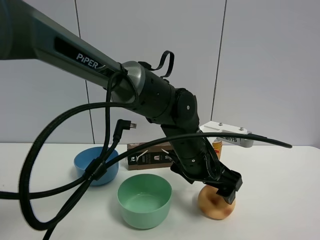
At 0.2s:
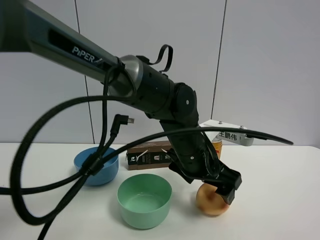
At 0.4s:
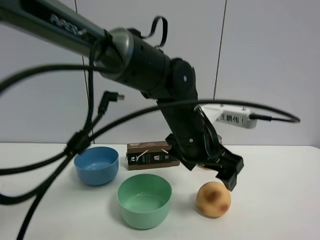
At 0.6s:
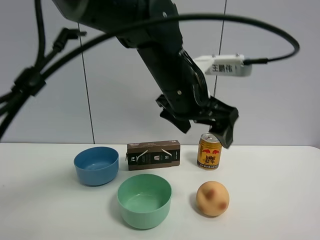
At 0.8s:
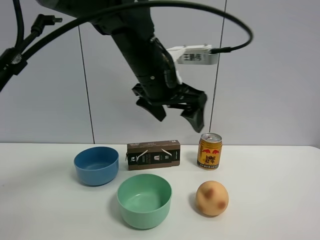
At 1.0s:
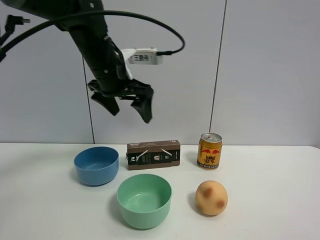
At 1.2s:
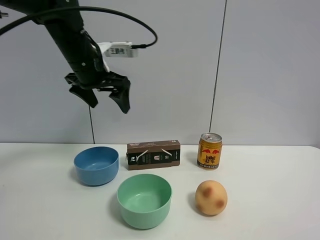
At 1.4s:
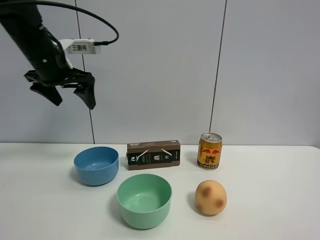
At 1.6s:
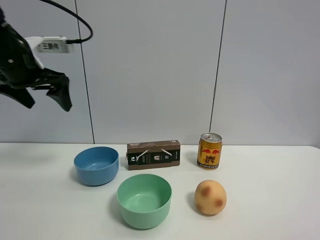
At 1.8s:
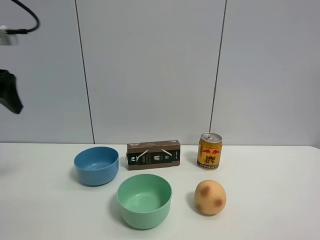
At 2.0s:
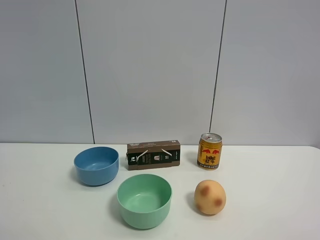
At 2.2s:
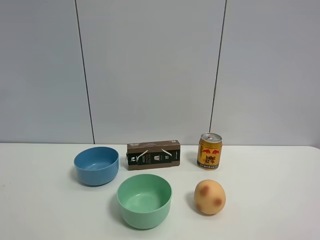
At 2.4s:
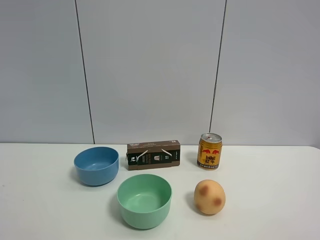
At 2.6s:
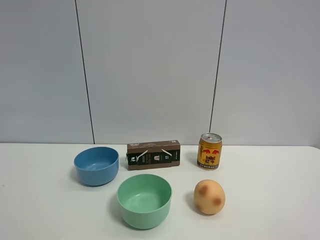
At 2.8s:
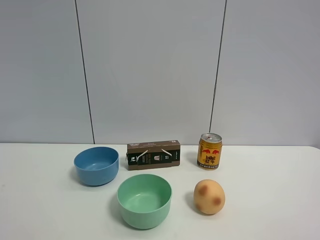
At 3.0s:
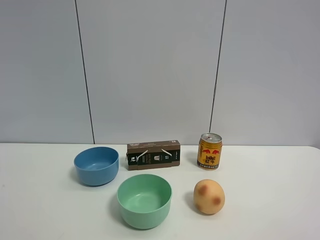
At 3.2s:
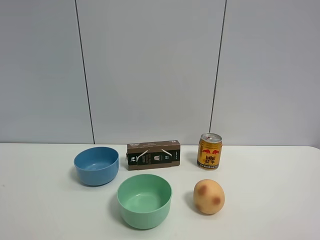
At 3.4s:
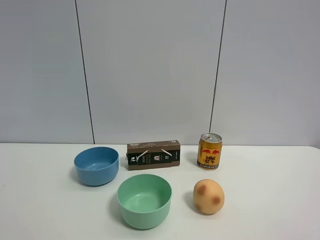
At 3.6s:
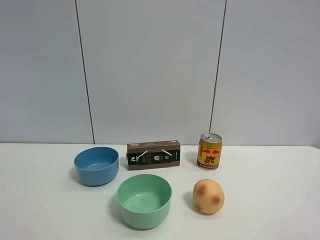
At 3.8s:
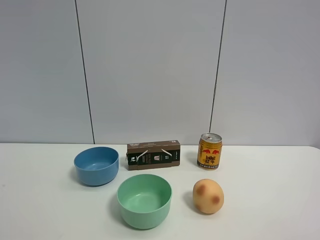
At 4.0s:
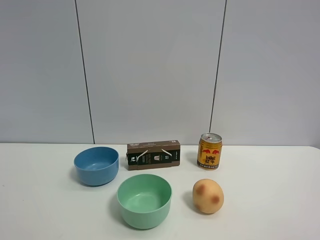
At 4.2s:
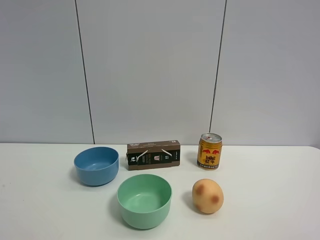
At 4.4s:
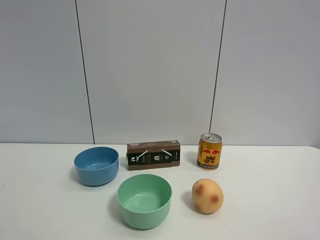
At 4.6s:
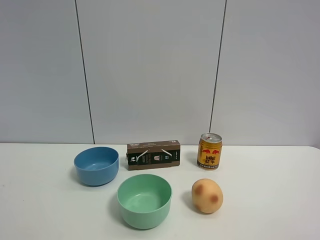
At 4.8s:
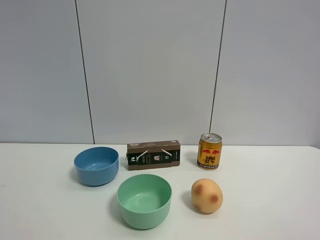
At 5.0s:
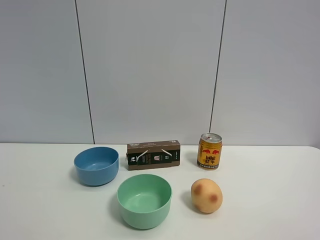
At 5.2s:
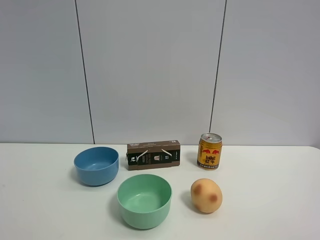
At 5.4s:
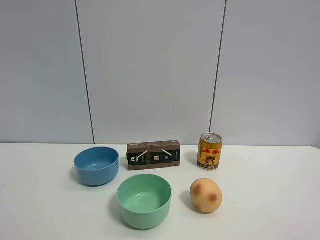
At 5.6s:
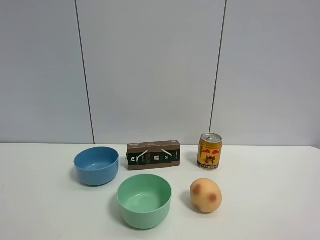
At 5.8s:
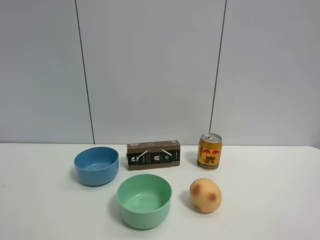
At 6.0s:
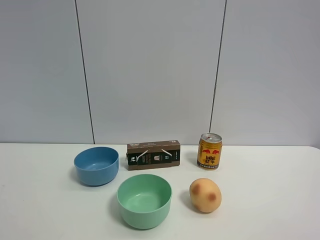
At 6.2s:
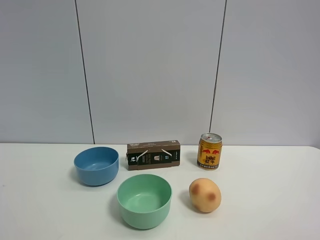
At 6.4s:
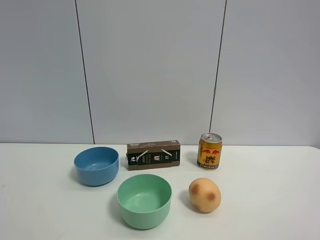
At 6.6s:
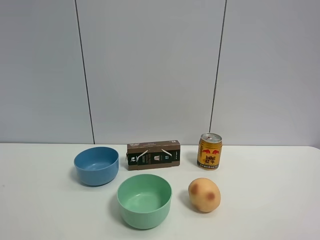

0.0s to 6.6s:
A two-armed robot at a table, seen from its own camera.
Task of the whole recording: the gripper move the object.
0.0s to 1.6s: The left gripper travels to the left and upward by approximately 40 cm.
1.6s to 3.2s: The left gripper is displaced backward by roughly 35 cm.
5.0s to 6.6s: Neither gripper changes place.

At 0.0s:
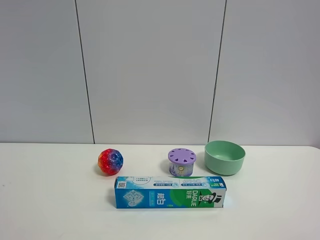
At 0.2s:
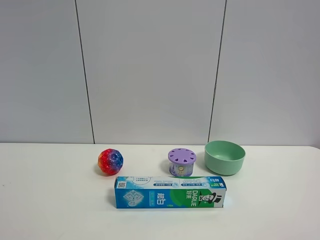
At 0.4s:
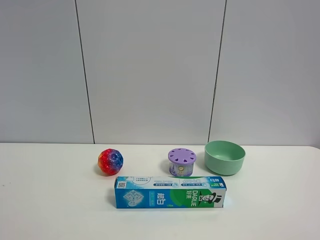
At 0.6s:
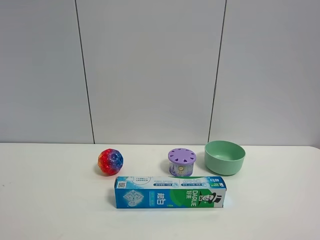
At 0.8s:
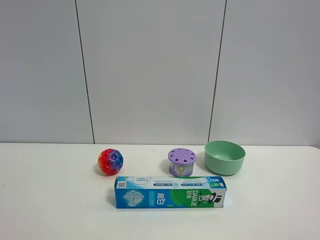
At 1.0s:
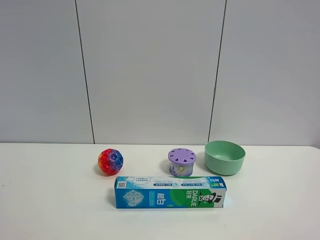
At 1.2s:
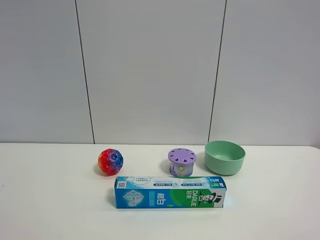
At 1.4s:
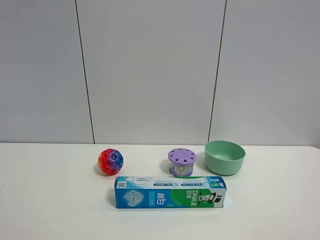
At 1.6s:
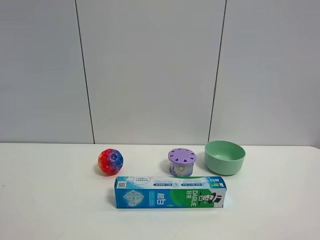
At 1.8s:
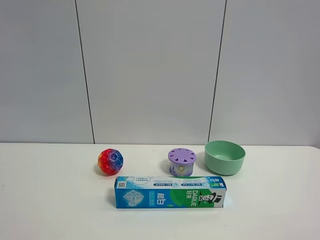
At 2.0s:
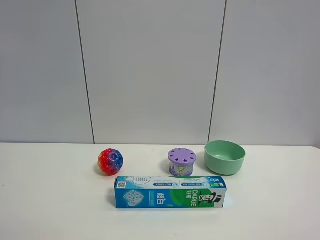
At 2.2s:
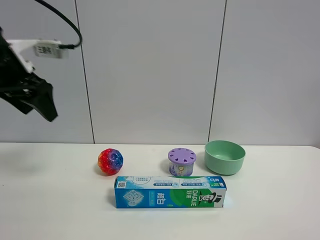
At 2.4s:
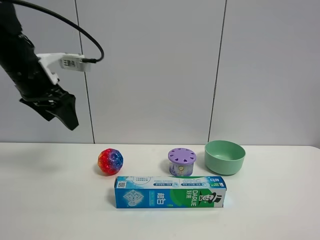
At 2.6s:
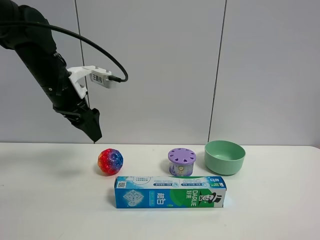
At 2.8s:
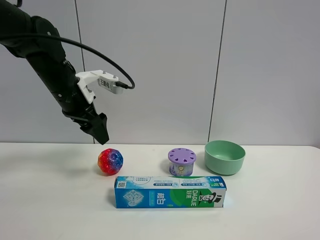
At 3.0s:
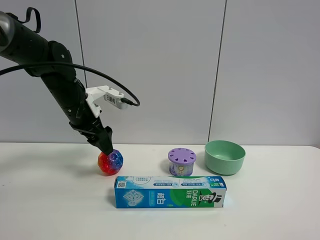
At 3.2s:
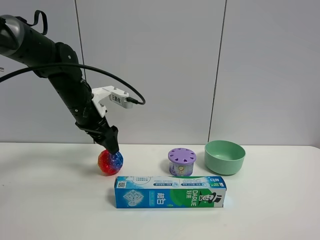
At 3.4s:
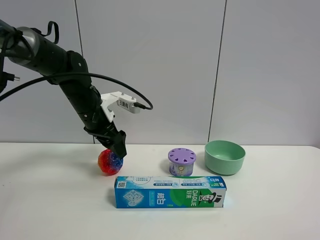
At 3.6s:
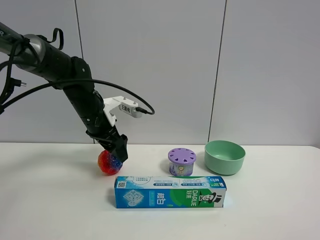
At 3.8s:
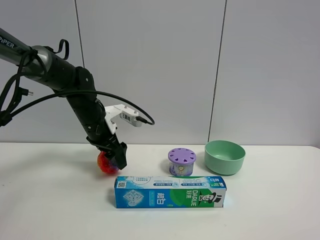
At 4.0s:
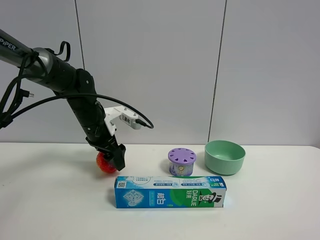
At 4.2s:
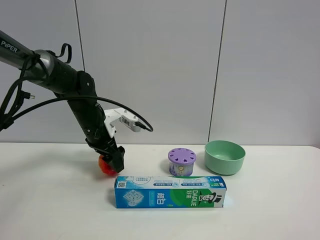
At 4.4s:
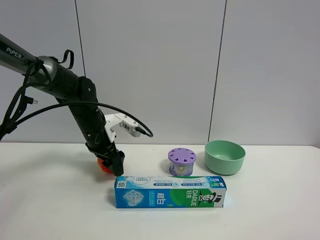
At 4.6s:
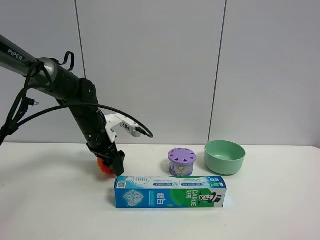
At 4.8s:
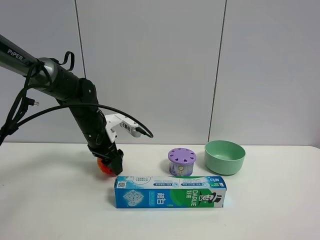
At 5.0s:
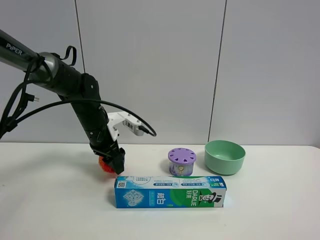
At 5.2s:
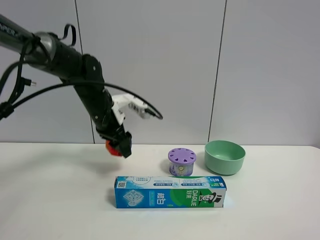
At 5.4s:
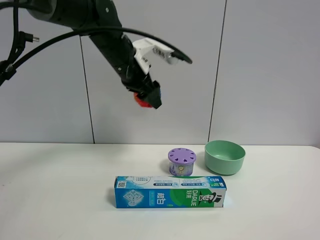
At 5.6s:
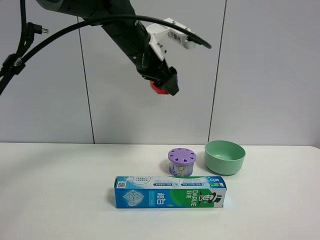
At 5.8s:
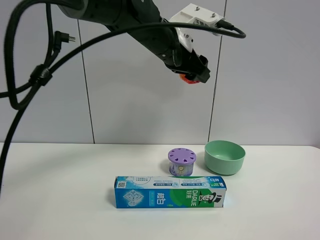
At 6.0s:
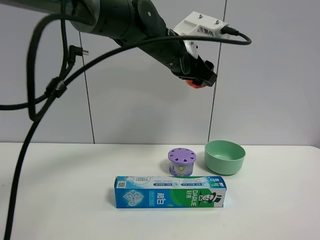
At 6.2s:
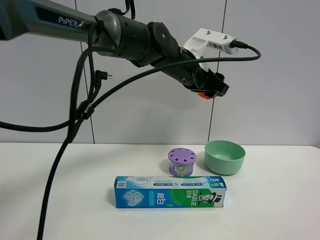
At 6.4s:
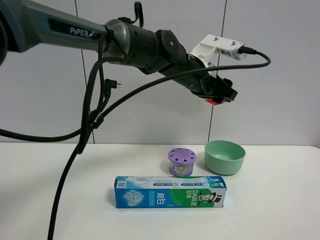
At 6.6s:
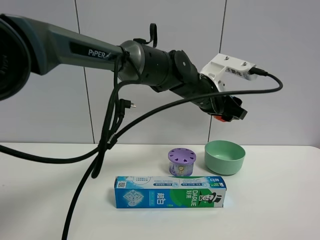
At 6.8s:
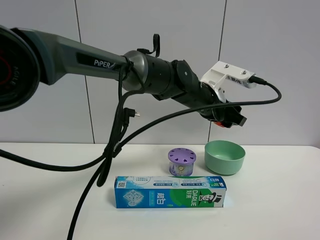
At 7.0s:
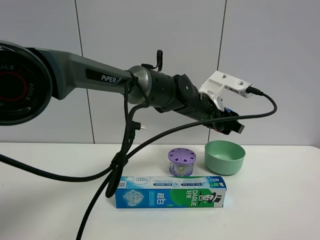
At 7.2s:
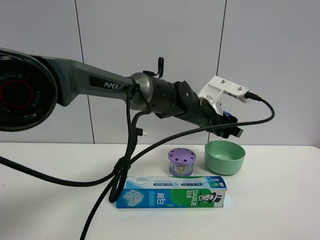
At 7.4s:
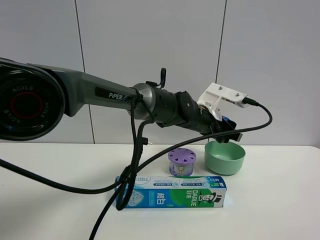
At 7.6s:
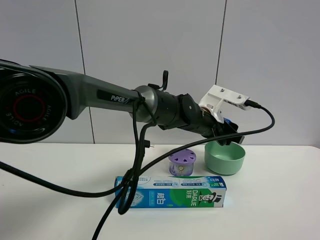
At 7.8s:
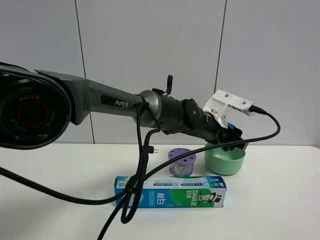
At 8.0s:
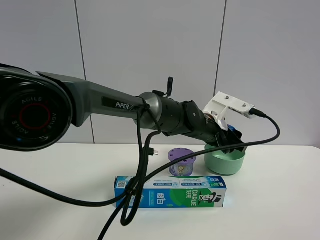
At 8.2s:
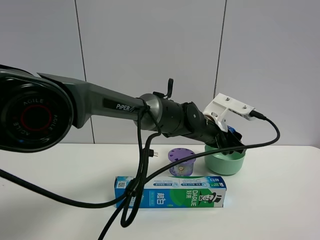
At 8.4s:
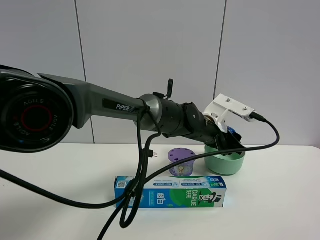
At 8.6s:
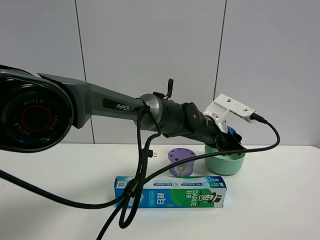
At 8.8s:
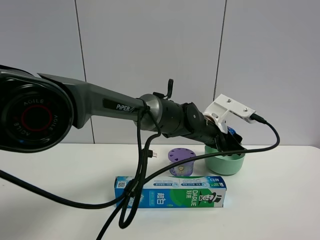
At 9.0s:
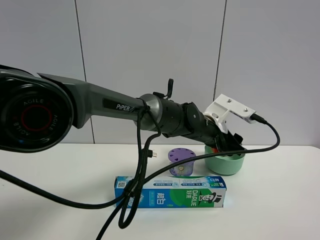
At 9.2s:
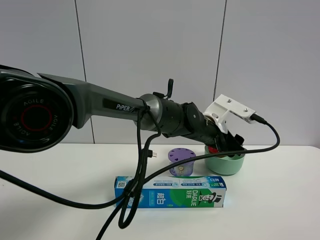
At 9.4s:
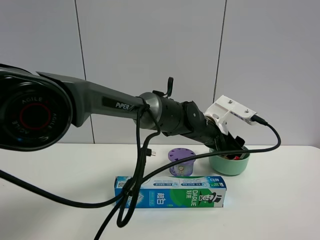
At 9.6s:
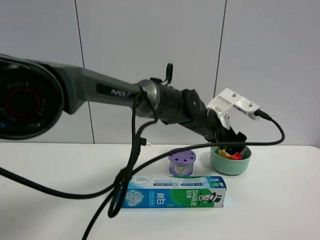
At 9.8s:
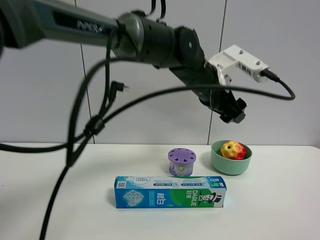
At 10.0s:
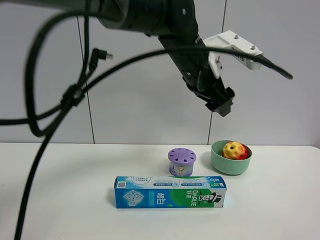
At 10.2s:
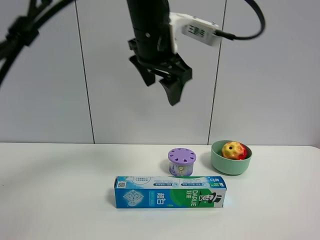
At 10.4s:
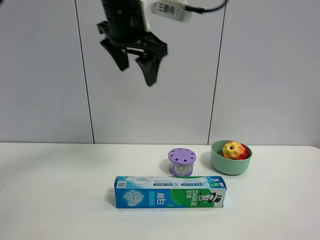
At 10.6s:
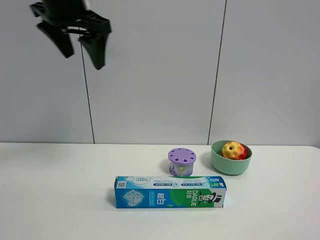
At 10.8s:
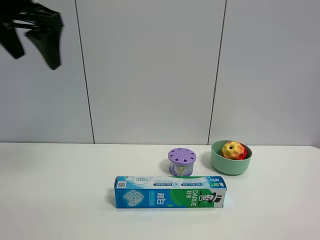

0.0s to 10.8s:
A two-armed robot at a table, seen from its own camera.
Task of the whole recording: the gripper move the object.
Step, 0.0s to 4.8s: Grasp the colorful ball with the left gripper.
Step, 5.0s to 9.4s: Place the colorful ball into the green bowl with the left gripper.
1.6s to 3.0s: The left gripper is displaced forward, downward and to the right by some 40 cm, and opens.
3.0s to 4.6s: The left gripper is displaced downward by approximately 5 cm.
4.6s to 6.2s: The left gripper goes some 25 cm to the right and upward, and closes.
6.2s to 7.8s: The left gripper shifts some 15 cm downward.
7.8s to 9.2s: The left gripper opens.
9.2s to 10.8s: The left gripper moves to the left and upward, approximately 40 cm.

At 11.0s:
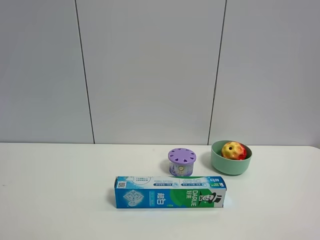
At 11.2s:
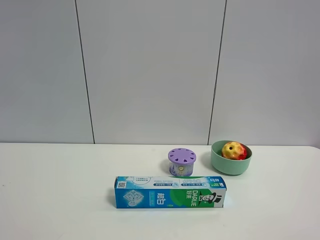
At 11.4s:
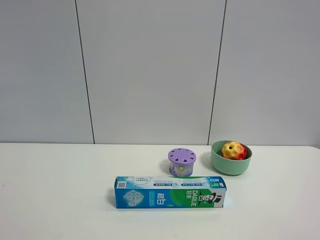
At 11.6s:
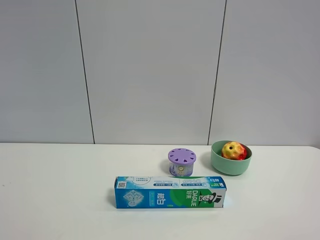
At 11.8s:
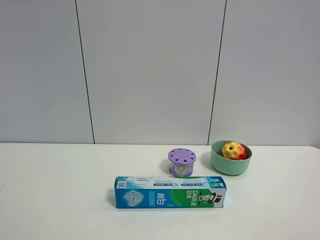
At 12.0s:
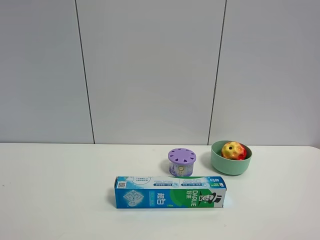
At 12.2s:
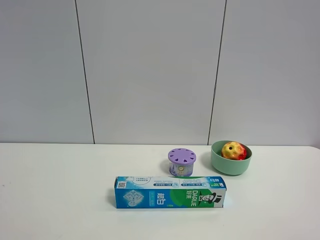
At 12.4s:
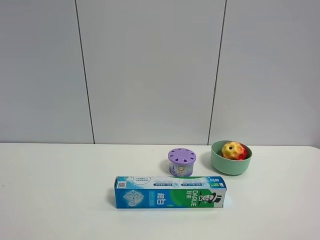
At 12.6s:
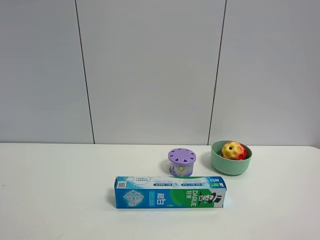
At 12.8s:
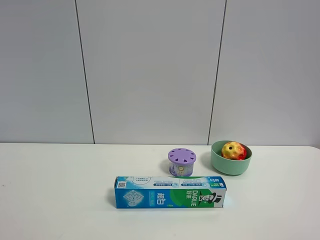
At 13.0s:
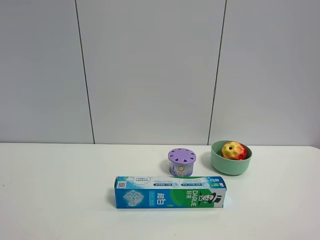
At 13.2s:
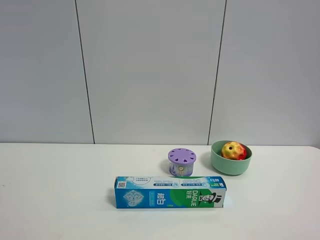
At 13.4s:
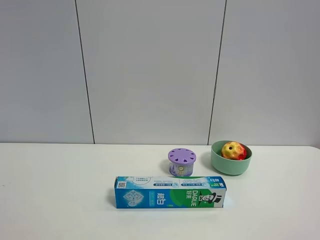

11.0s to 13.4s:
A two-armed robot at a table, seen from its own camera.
Task of the whole recording: the gripper move the object.
12.2s to 13.4s: The two grippers keep their place.

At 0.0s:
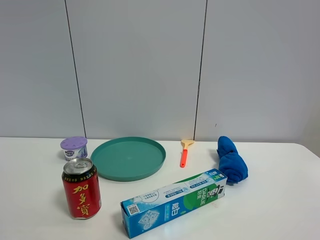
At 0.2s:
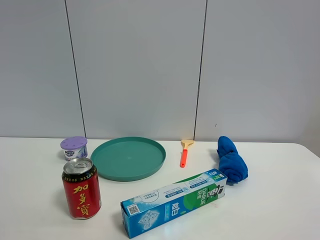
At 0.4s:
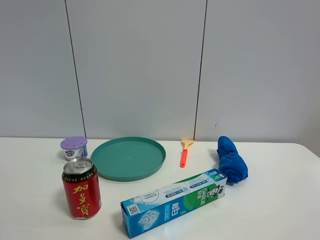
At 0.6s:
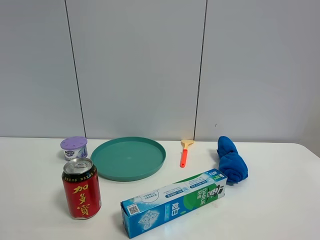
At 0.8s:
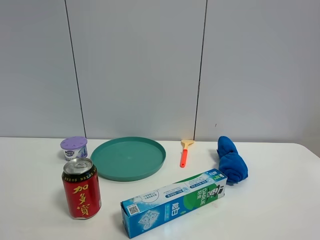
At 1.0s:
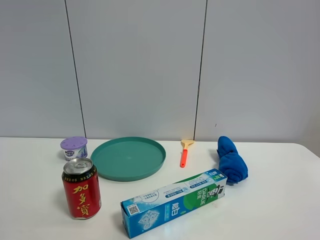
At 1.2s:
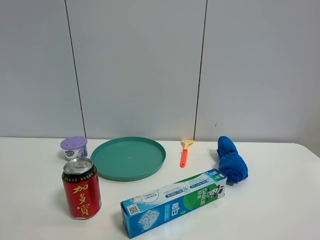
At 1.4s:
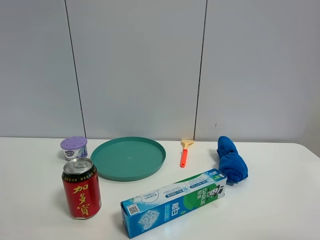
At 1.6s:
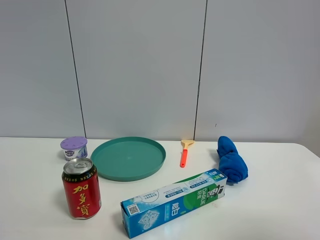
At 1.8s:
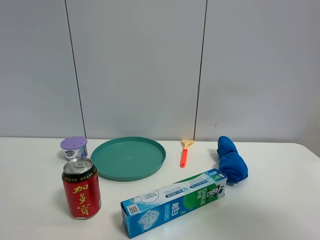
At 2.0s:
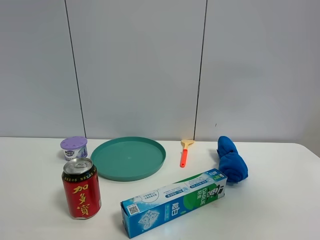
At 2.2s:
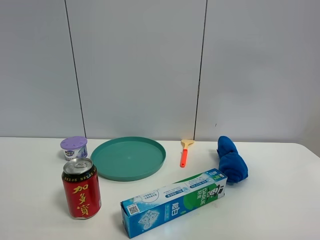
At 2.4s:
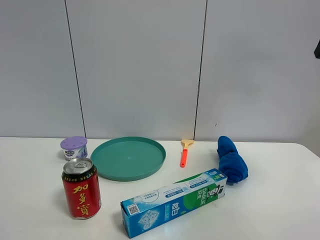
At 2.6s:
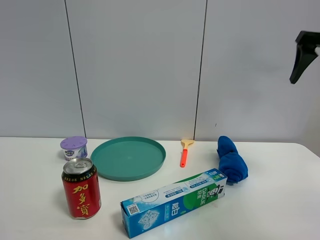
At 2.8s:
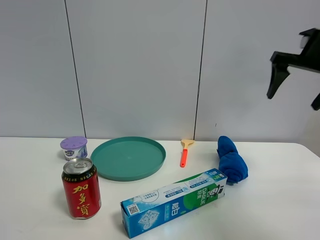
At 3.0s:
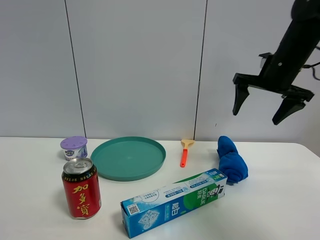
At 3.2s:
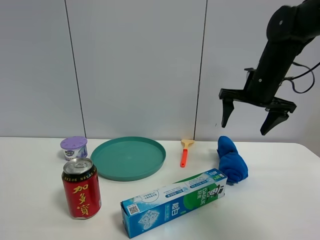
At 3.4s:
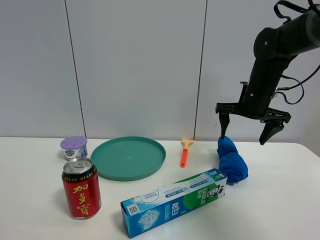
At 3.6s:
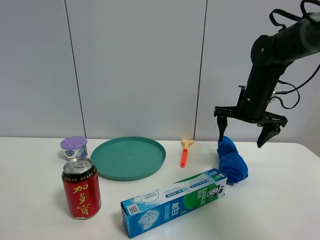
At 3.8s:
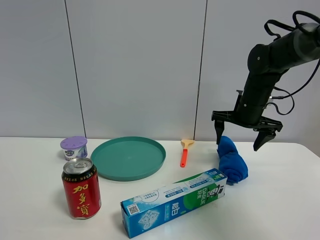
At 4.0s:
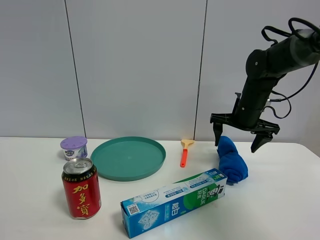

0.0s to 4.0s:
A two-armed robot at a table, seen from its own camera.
Task of the whole recording: the gripper move the object.
1.4s to 2.6s: The right gripper travels forward by roughly 30 cm.
2.6s to 4.0s: The right gripper travels downward, to the left and forward by some 25 cm.
